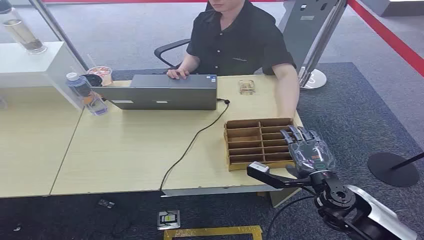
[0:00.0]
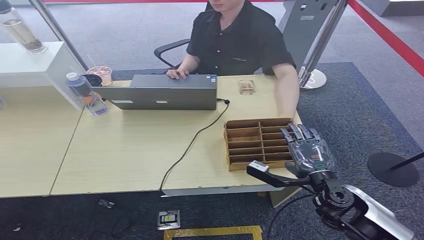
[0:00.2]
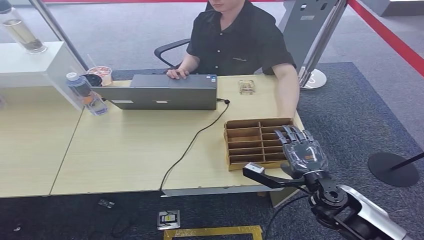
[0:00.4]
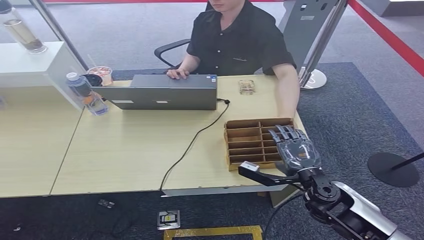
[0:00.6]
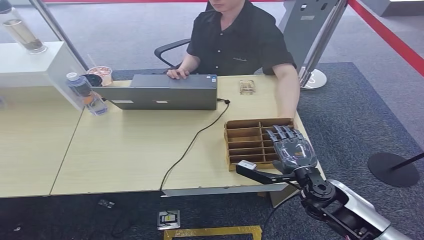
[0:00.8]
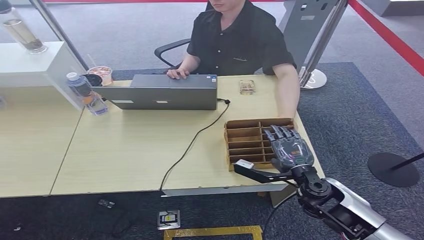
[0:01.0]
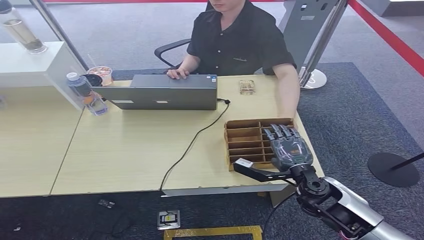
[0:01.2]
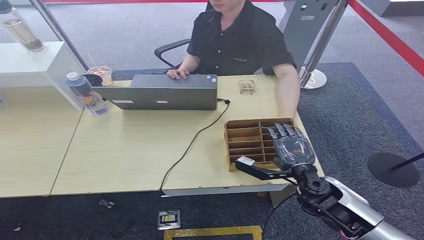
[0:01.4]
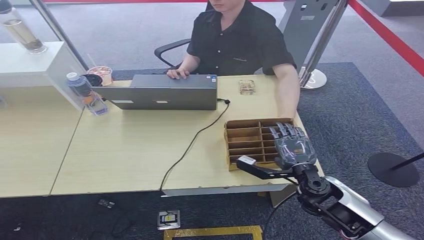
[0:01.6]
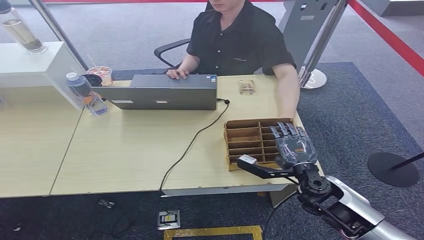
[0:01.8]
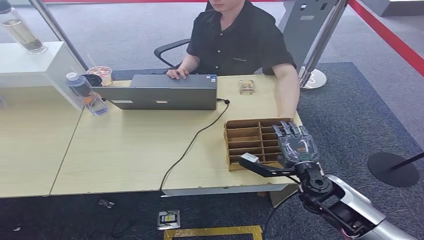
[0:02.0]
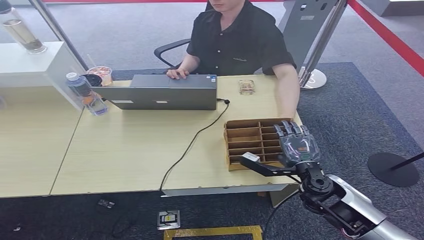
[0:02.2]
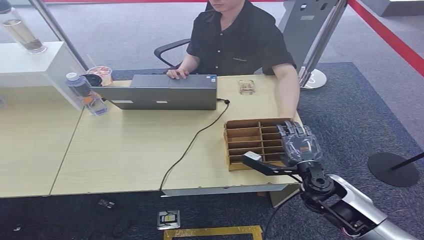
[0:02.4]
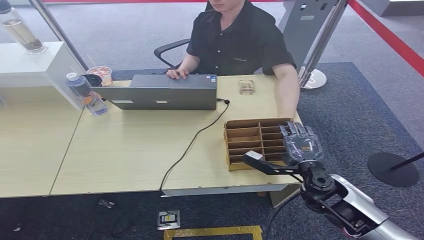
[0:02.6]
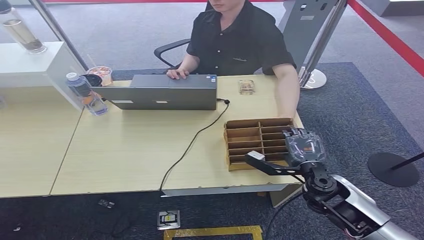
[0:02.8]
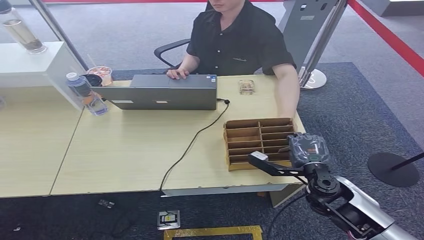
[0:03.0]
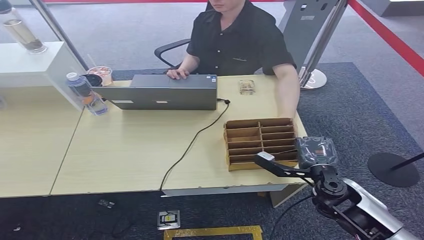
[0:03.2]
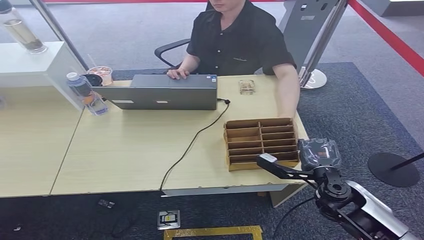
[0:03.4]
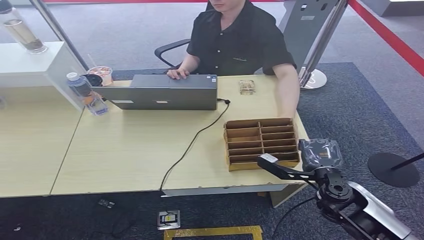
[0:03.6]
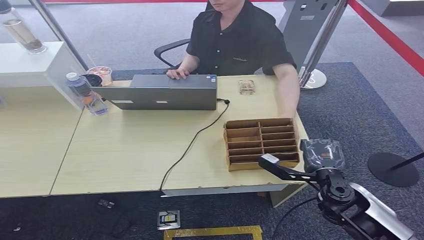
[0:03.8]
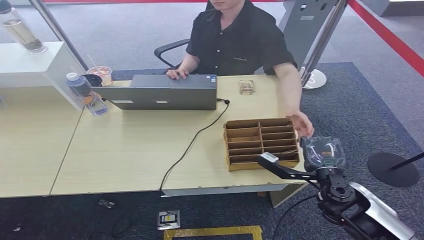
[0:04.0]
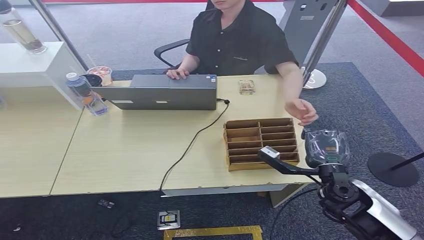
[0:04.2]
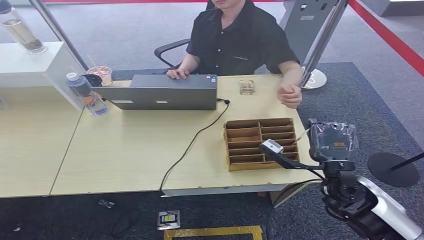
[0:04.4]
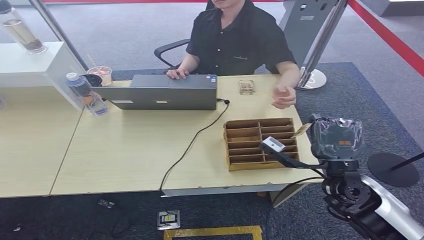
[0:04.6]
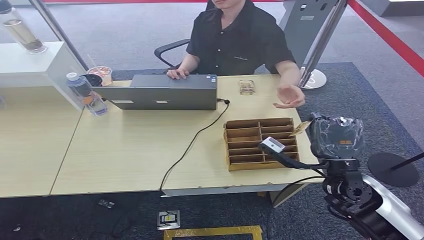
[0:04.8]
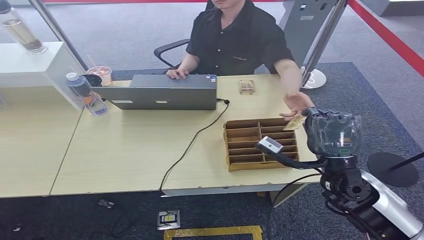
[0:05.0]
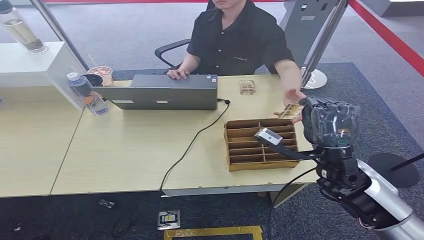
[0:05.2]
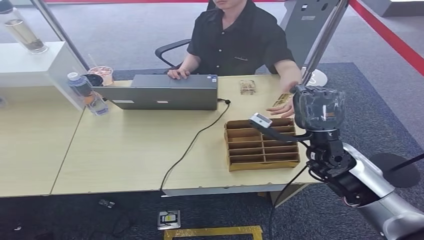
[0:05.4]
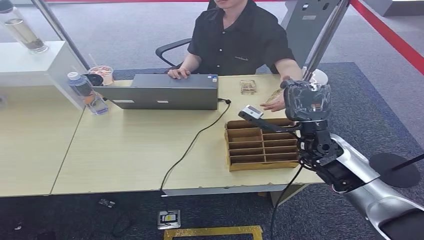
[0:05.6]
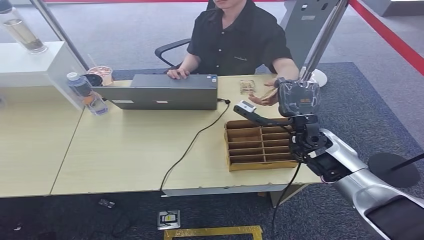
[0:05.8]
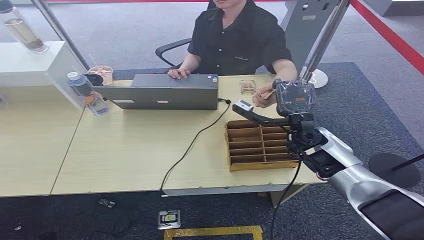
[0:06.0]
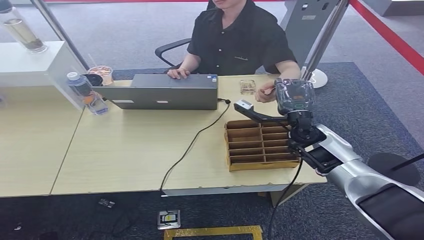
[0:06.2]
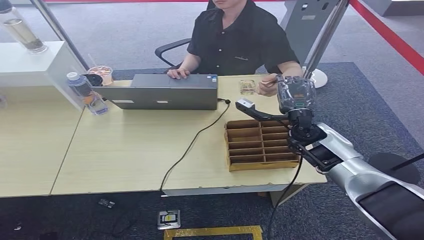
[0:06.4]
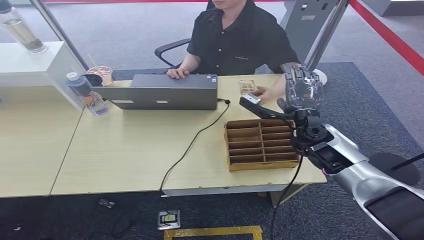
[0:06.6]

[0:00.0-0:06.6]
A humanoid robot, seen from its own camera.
Task of the whole recording: Pick up the card and hand it over to the target person.
Step, 0:00.0 to 0:03.8: Pick up the key card from the card box.
Step, 0:04.0 to 0:06.6: Hand the key card to the target.
0:01.6 to 0:03.2: The right hand shifts by roughly 5 cm.
0:03.2 to 0:05.0: The right hand shifts approximately 5 cm forward.
0:05.0 to 0:06.6: The right hand moves about 10 cm forward and comes back.
